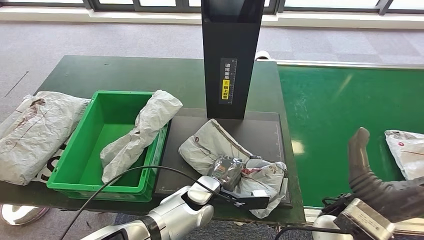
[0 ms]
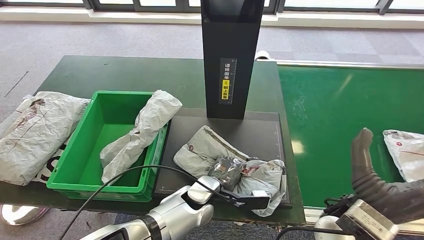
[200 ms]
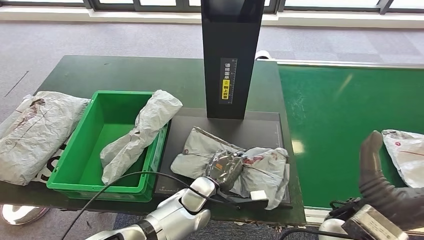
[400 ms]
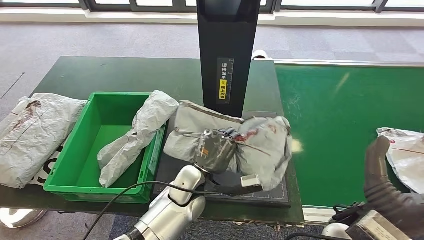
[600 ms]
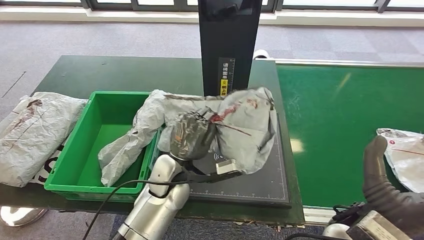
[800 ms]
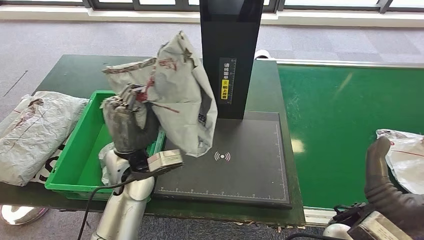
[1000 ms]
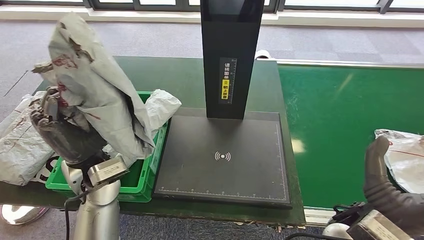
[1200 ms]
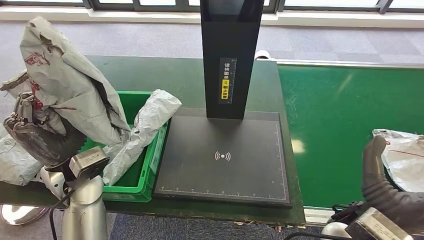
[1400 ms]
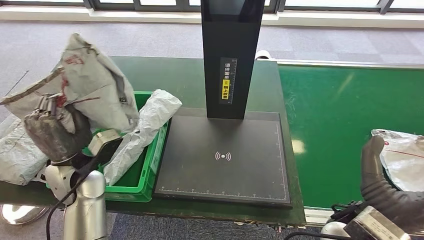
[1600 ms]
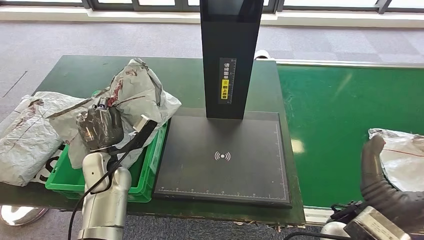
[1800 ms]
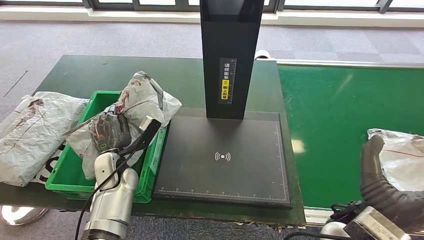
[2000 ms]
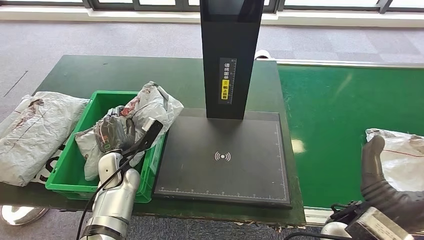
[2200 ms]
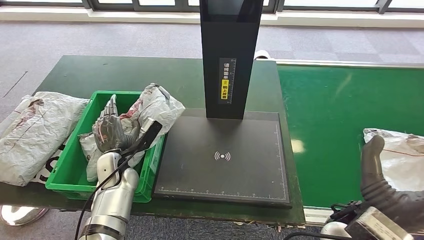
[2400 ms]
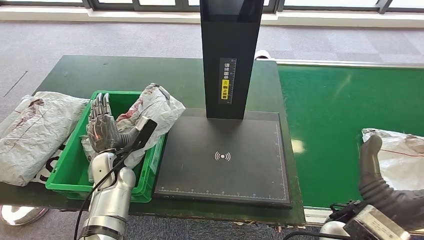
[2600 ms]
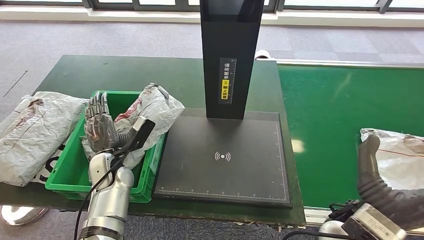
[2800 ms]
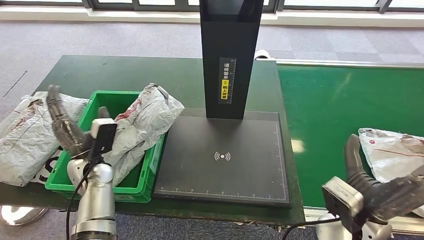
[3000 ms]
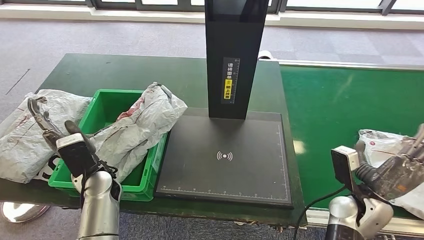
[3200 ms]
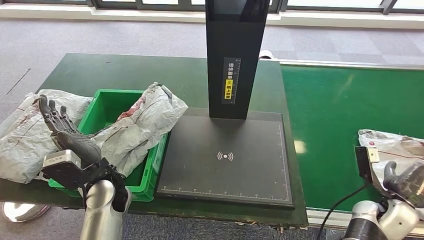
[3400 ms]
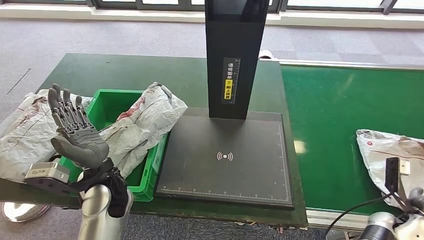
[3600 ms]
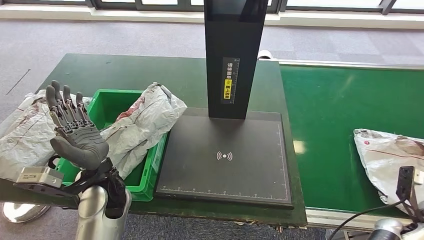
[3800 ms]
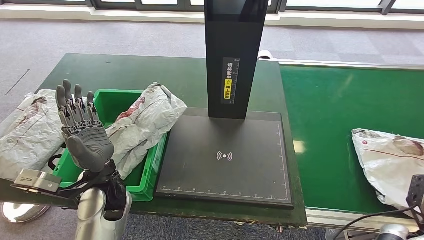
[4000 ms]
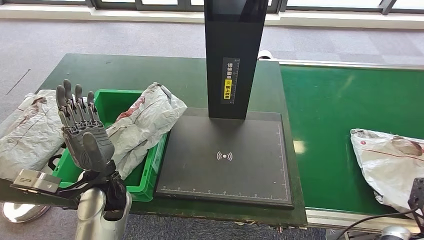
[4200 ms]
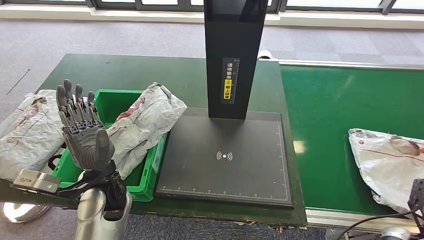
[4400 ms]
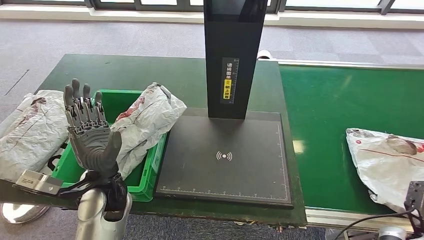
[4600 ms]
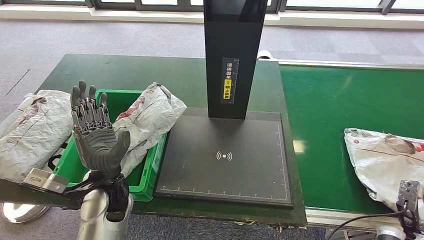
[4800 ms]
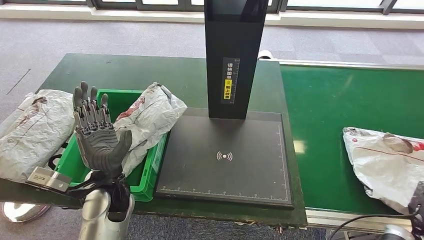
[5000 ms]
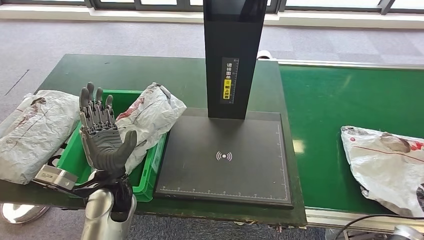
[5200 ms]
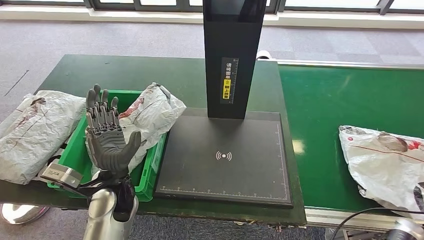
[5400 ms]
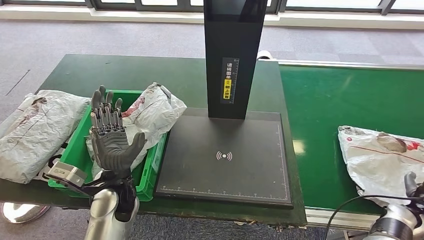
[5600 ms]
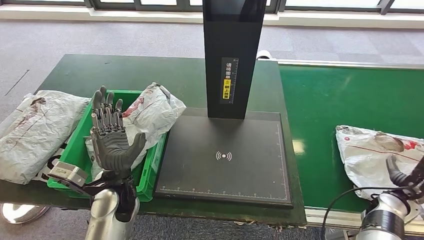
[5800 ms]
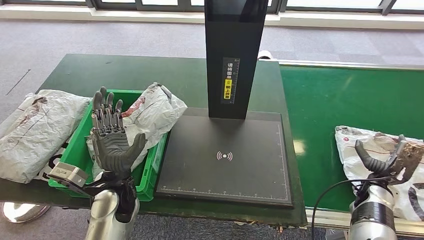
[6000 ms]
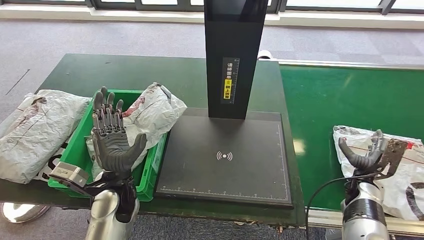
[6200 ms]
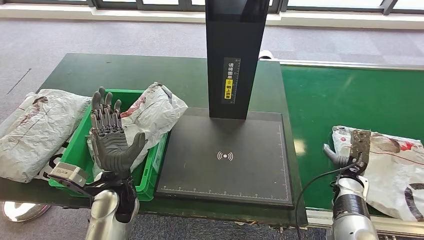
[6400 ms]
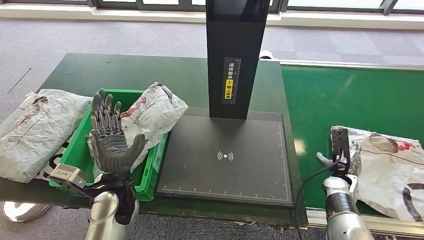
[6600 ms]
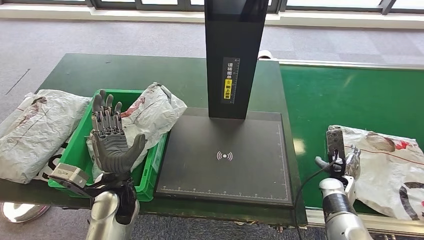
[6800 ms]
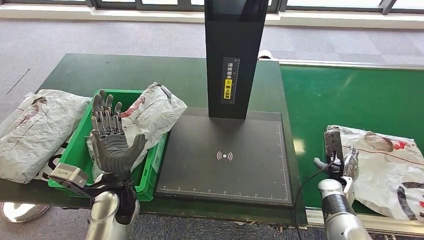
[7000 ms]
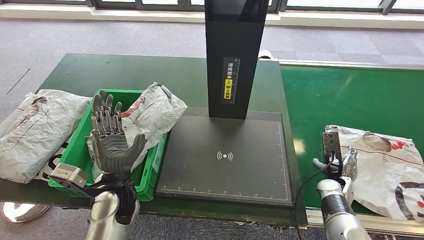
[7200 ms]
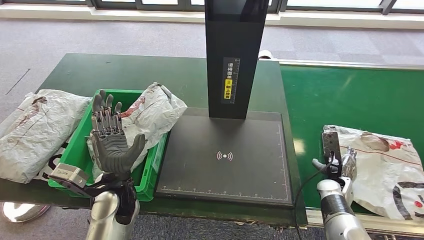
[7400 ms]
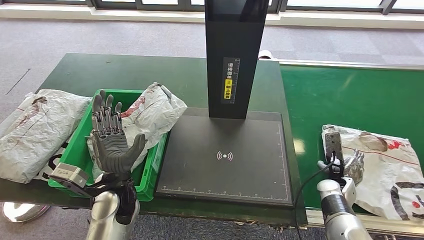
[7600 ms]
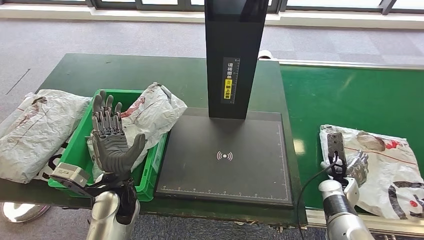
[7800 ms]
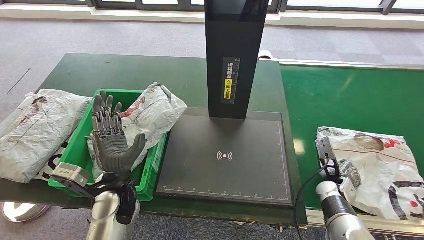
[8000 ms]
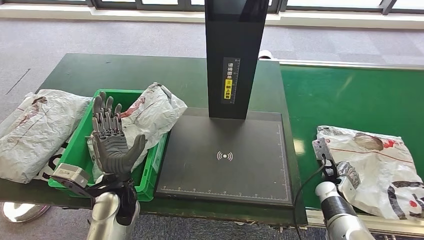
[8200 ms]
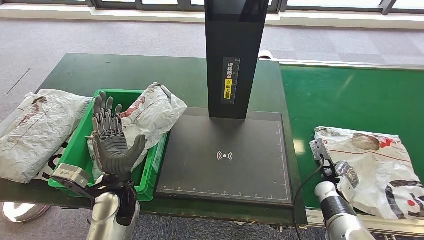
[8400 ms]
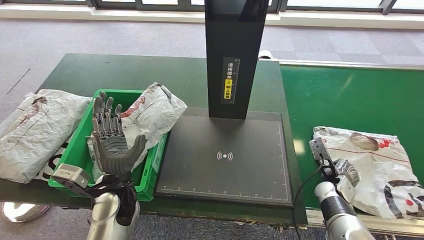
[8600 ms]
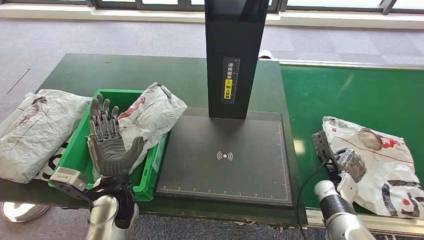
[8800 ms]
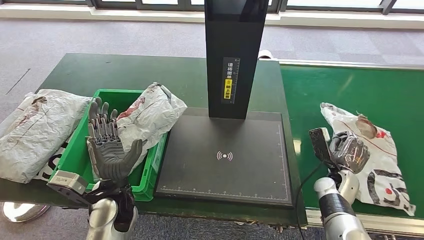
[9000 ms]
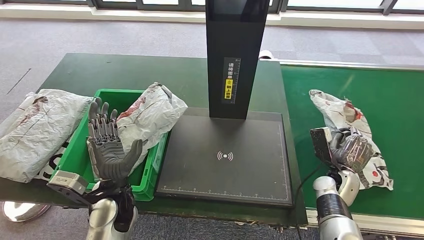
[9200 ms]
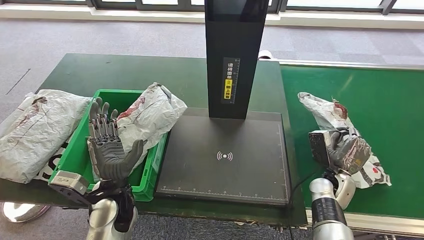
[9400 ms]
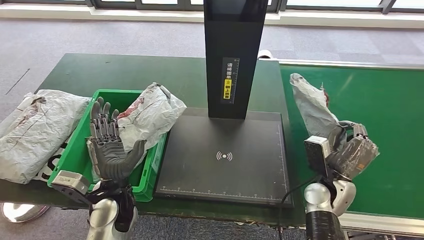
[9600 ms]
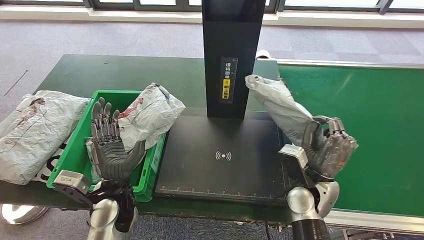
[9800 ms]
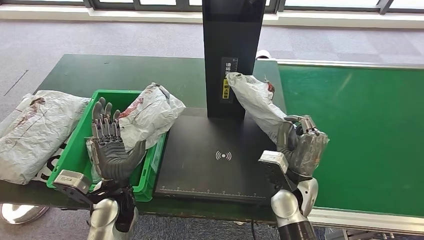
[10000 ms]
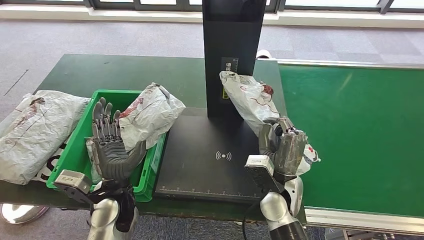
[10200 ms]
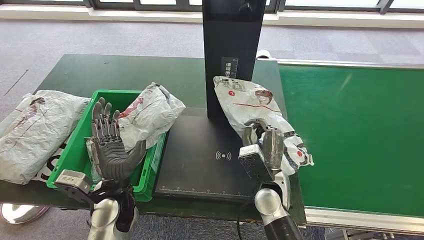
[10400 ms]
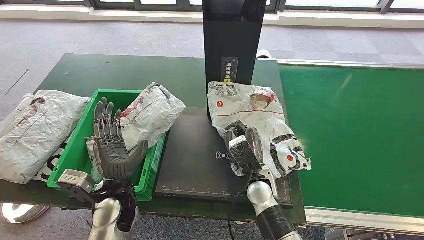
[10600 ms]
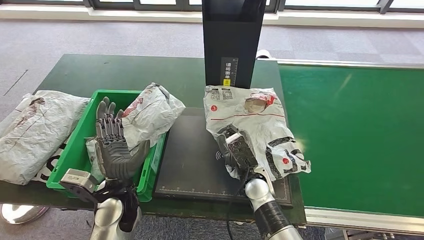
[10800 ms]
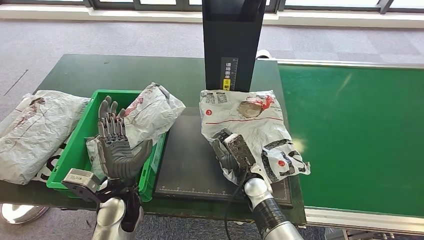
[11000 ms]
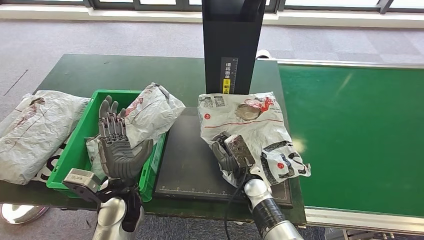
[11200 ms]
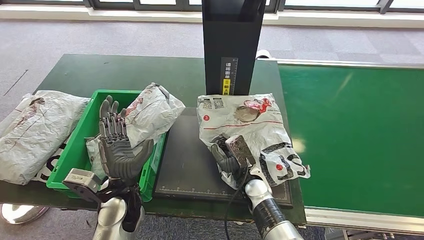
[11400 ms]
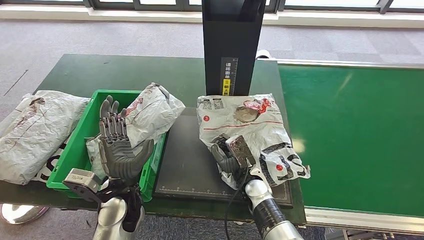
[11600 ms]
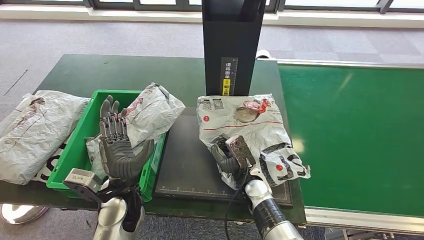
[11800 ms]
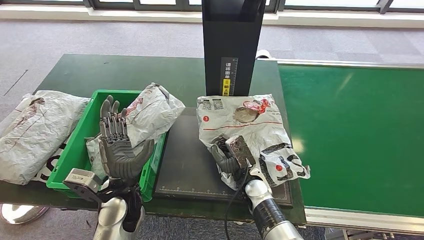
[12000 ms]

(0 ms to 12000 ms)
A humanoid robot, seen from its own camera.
Step, 1400 ms - 3800 ms: Place the parcel into the delivery box.
Step, 7600 ms - 9600 ms: Pick up the parcel from the conveyor belt.
4400 ms - 6000 ms: The right hand moves forward and to the left, about 10 cm.
6000 ms - 7600 ms: The right hand is displaced to the left by some 5 cm.
10400 ms - 12000 ms: The right hand shifts about 5 cm downward.

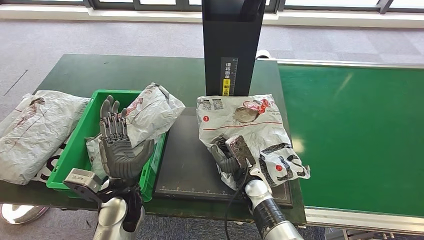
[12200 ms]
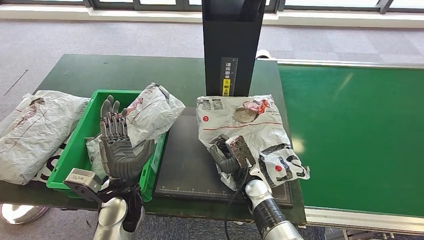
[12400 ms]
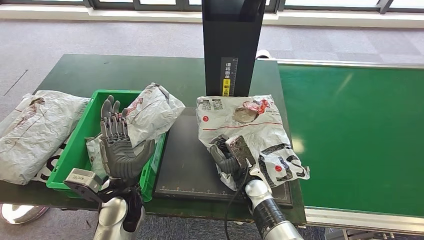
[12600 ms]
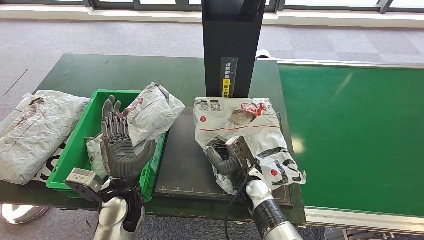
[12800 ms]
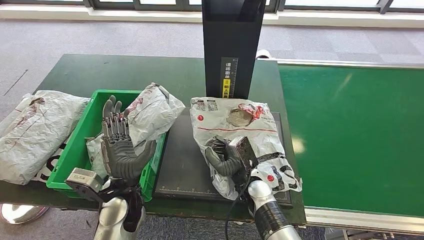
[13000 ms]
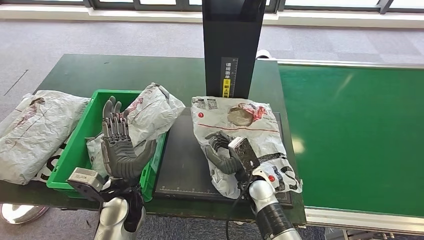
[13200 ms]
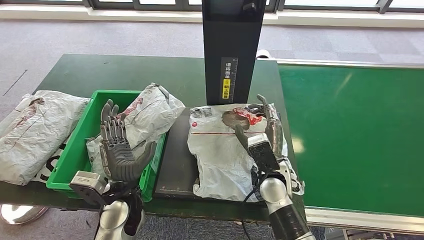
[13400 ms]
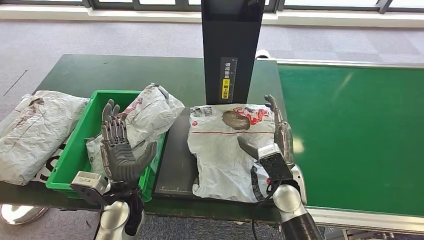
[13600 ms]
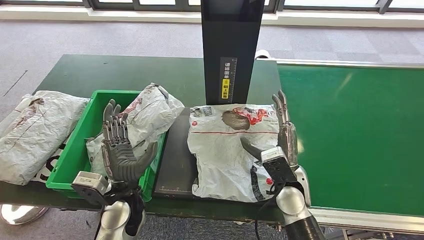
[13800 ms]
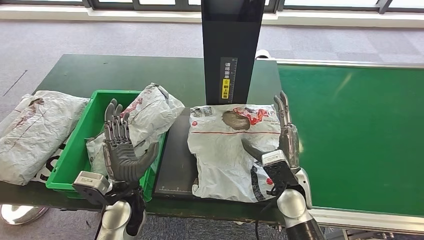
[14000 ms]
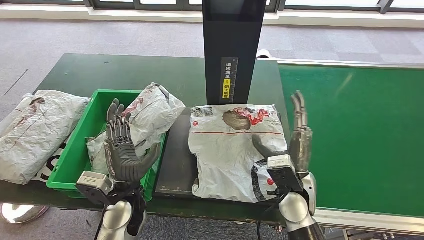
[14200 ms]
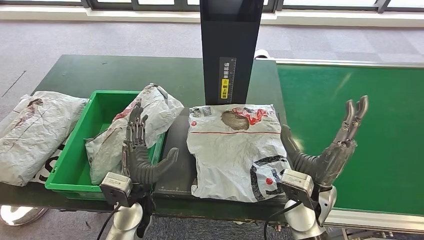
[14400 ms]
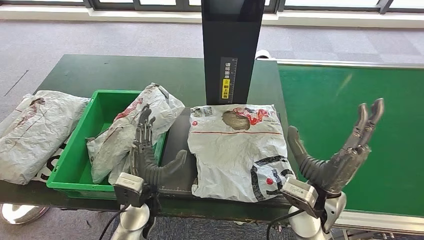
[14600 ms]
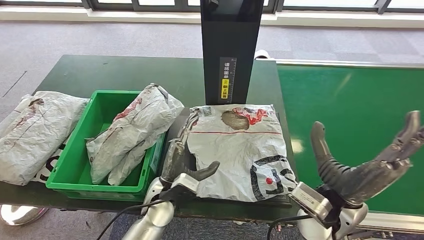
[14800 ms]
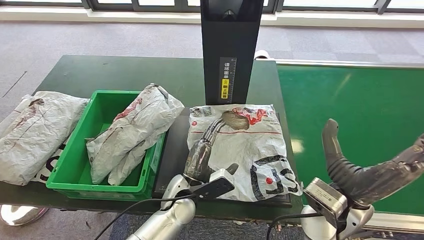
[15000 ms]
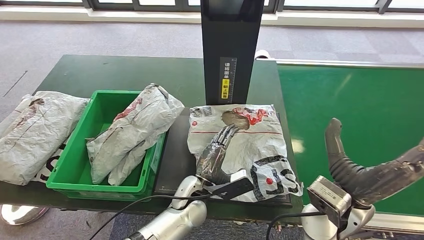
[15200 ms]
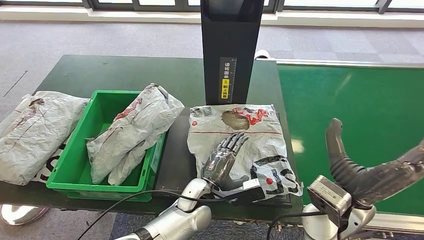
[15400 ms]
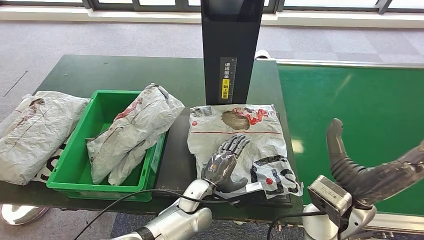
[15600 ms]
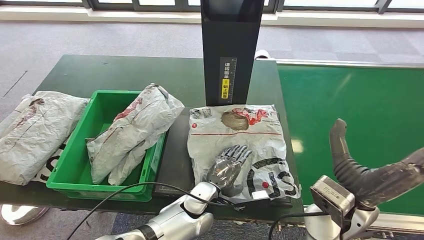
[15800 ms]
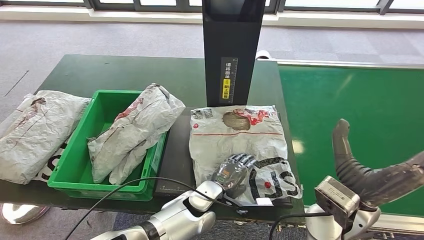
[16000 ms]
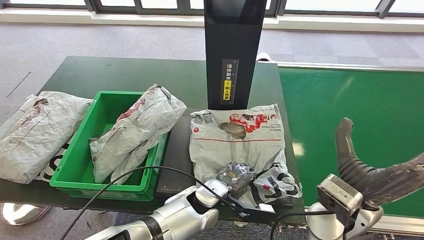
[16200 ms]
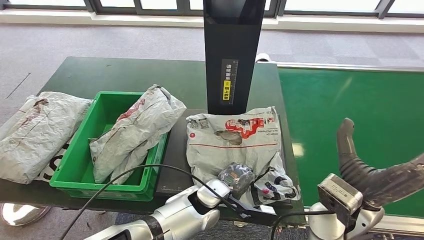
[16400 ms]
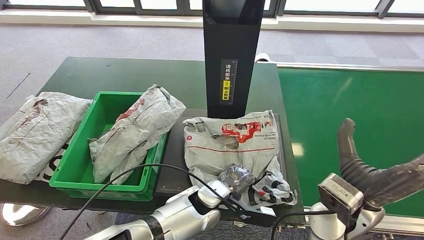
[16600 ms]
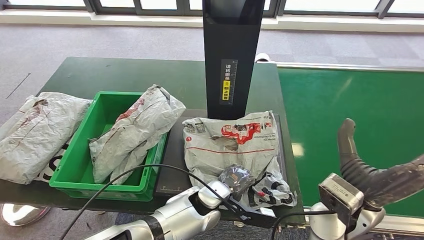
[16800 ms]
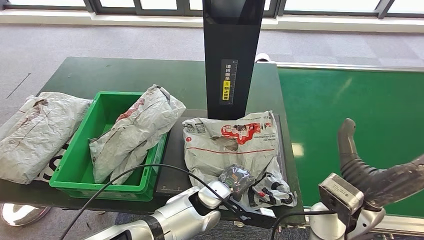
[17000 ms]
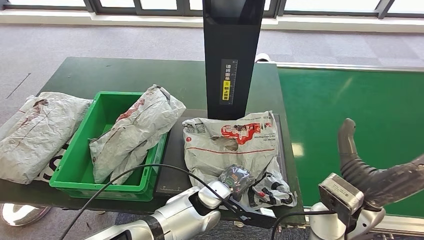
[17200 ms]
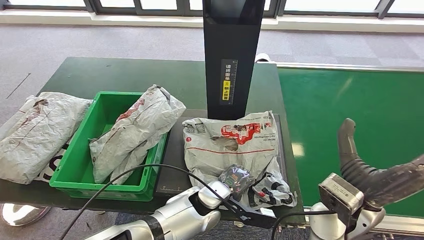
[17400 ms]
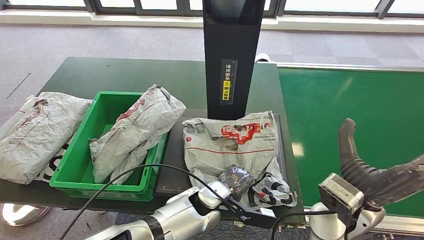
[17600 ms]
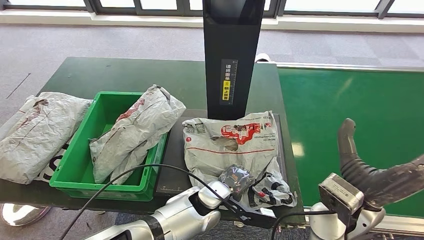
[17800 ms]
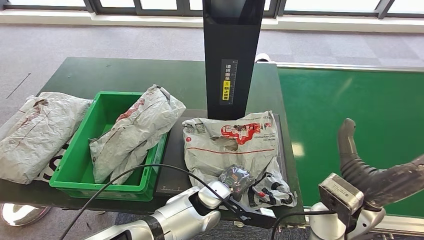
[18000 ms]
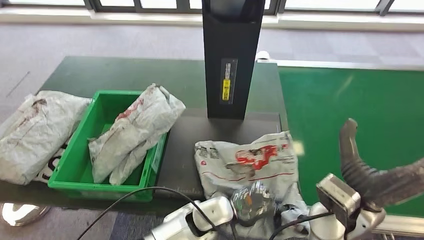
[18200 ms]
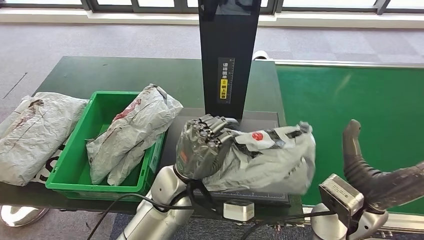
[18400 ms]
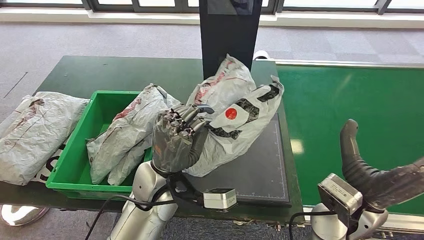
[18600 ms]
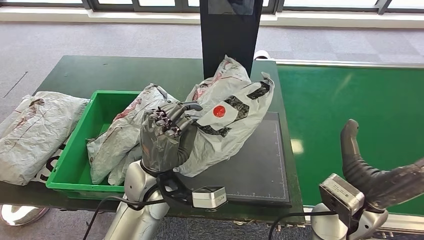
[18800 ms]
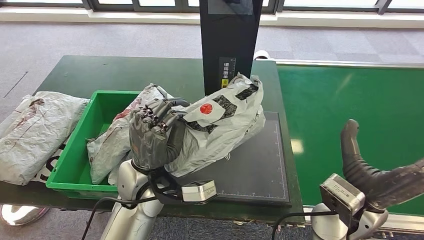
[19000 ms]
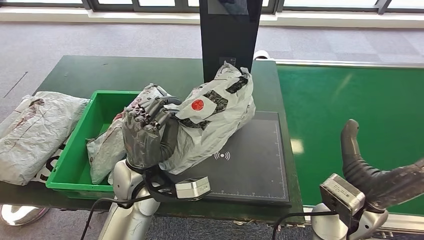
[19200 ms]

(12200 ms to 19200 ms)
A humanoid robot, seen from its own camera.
Step, 17200 ms - 19000 ms: Pick up the parcel from the inbound machine.
12200 ms - 13600 ms: The right hand moves upward and to the right, approximately 10 cm.
16400 ms - 17800 ms: Both hands stay about where they are.
